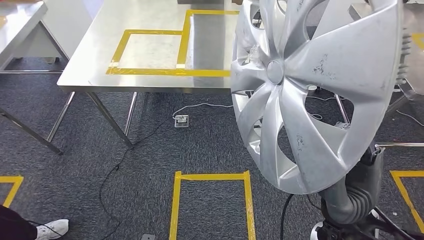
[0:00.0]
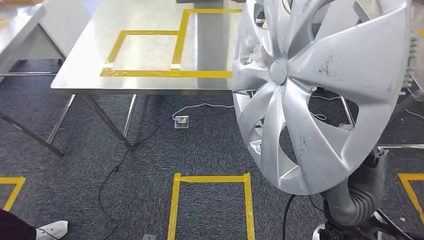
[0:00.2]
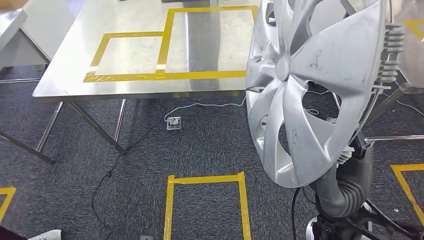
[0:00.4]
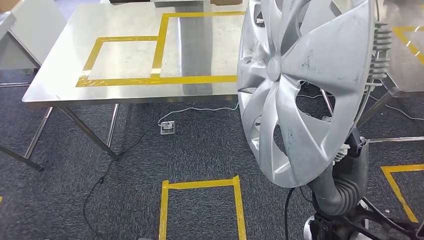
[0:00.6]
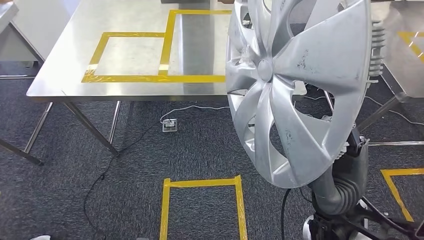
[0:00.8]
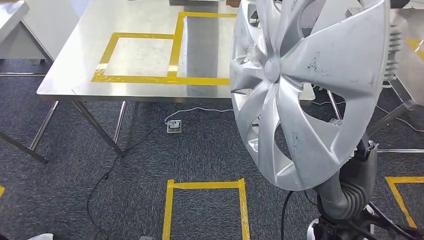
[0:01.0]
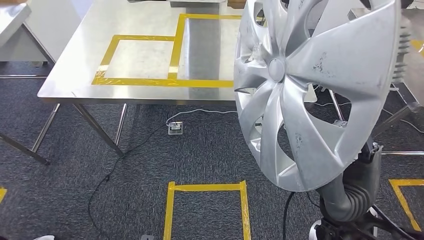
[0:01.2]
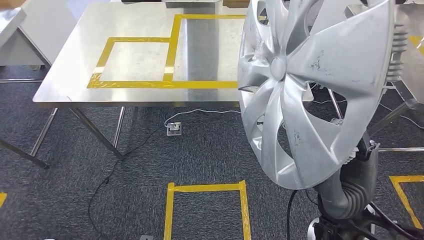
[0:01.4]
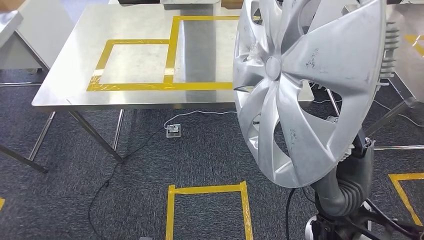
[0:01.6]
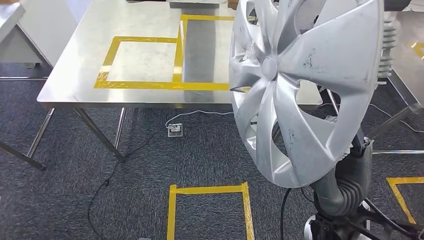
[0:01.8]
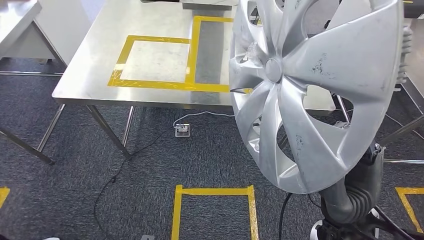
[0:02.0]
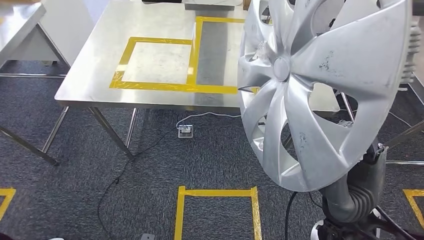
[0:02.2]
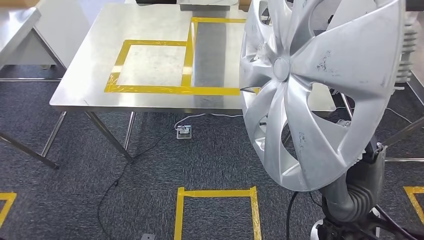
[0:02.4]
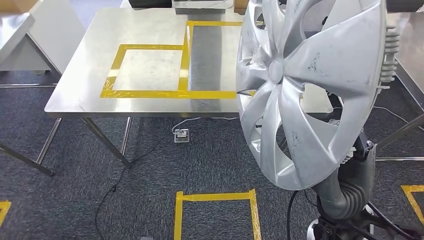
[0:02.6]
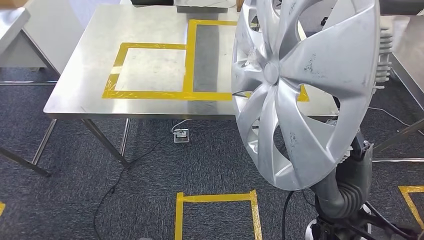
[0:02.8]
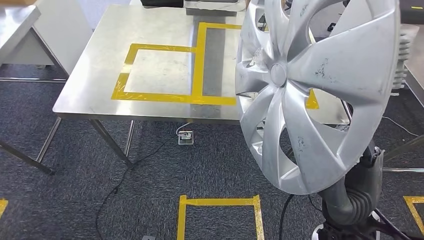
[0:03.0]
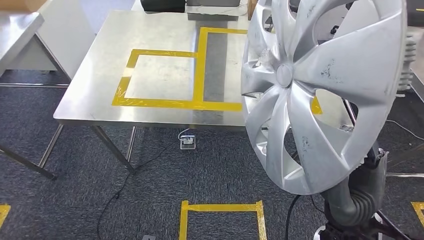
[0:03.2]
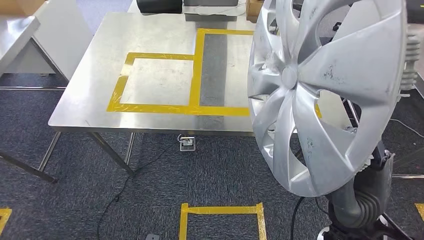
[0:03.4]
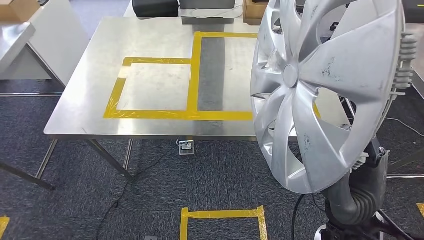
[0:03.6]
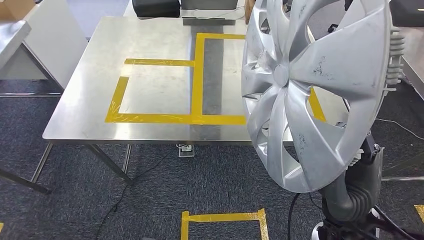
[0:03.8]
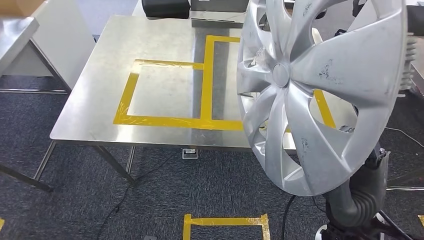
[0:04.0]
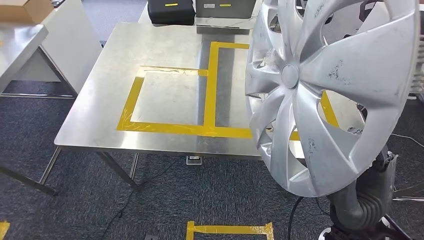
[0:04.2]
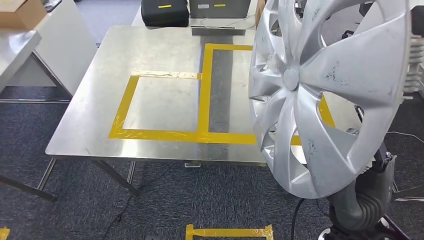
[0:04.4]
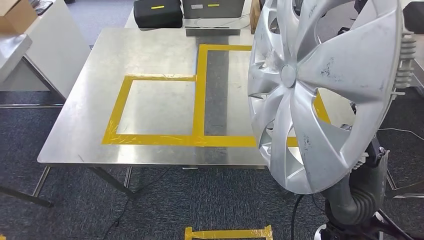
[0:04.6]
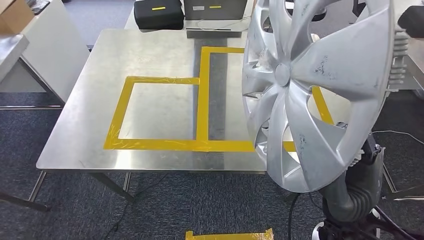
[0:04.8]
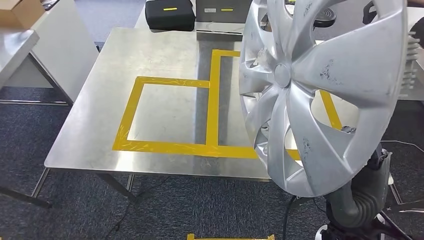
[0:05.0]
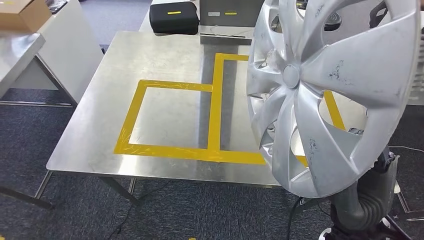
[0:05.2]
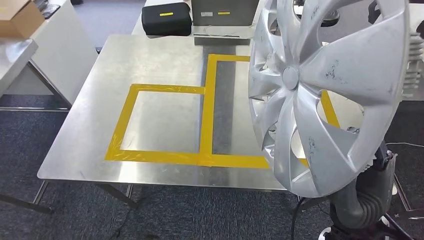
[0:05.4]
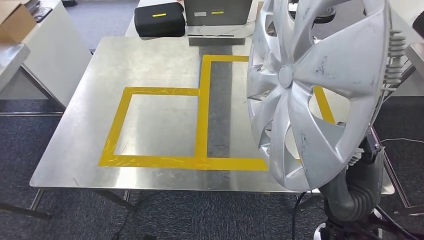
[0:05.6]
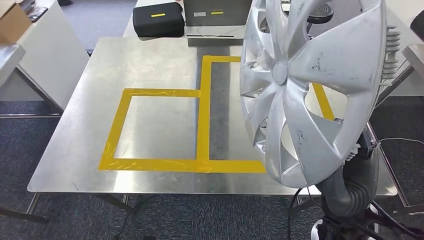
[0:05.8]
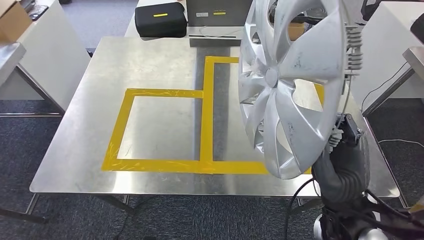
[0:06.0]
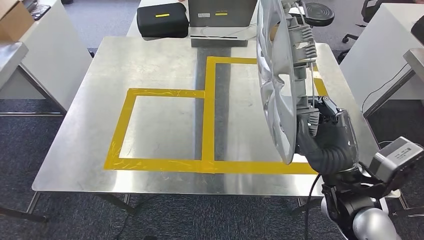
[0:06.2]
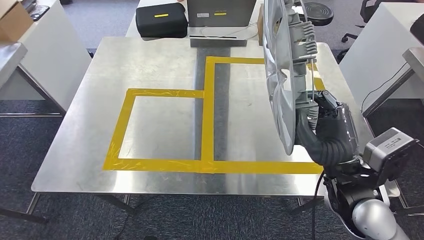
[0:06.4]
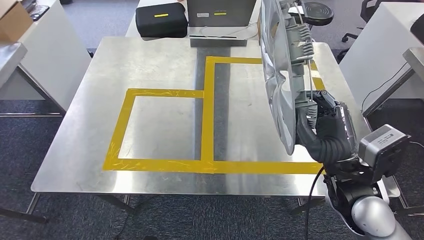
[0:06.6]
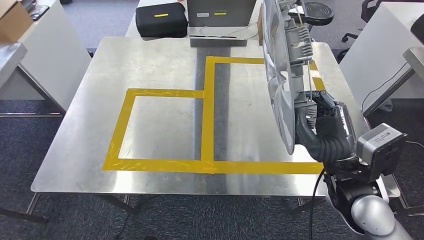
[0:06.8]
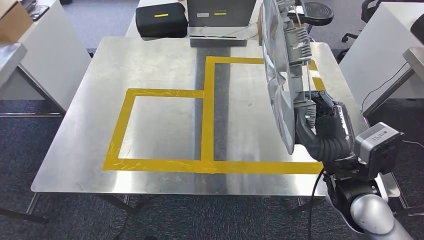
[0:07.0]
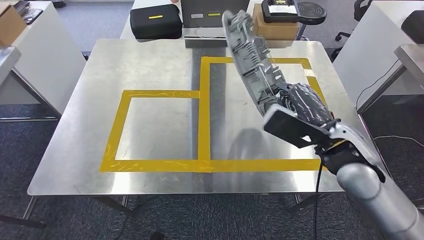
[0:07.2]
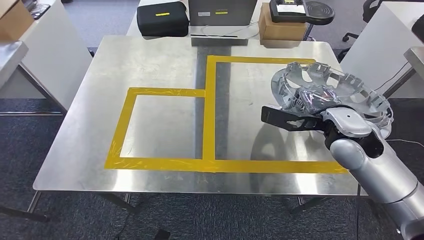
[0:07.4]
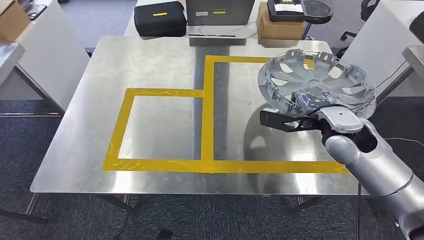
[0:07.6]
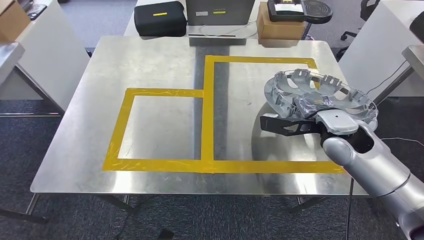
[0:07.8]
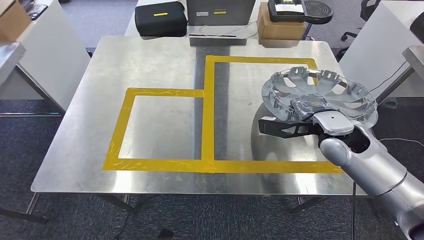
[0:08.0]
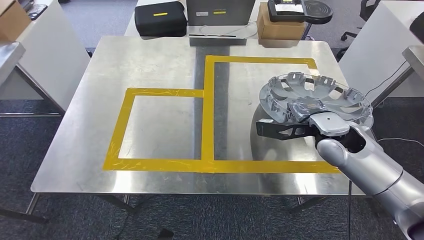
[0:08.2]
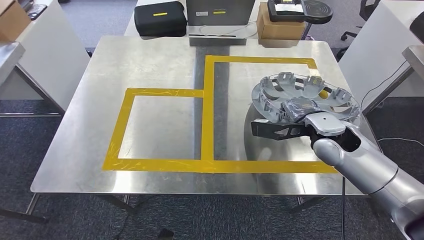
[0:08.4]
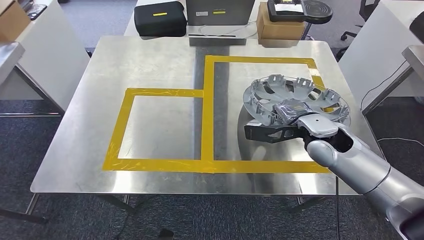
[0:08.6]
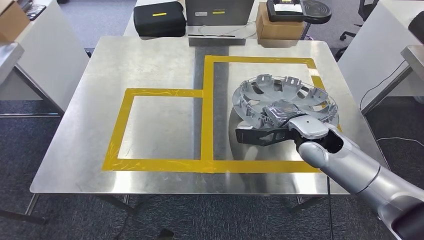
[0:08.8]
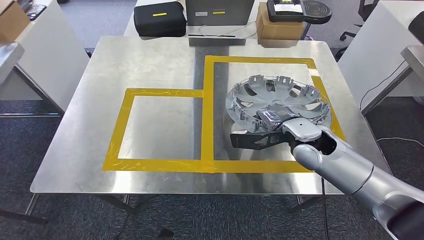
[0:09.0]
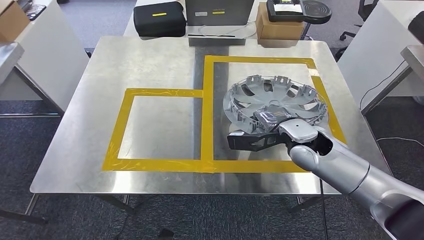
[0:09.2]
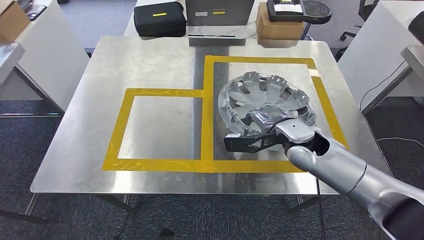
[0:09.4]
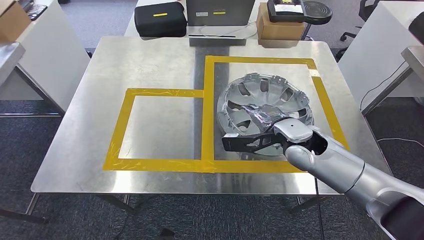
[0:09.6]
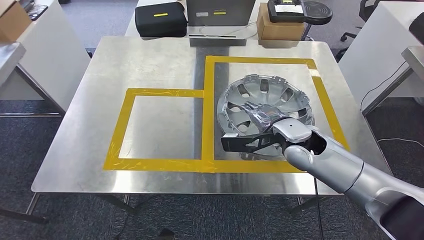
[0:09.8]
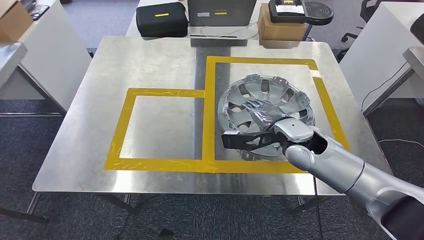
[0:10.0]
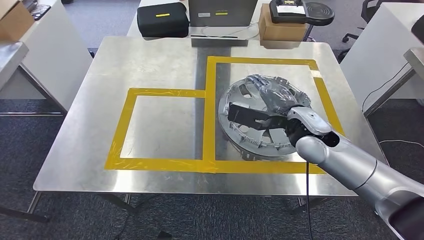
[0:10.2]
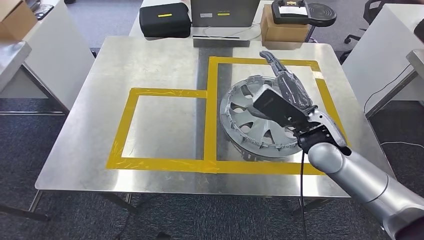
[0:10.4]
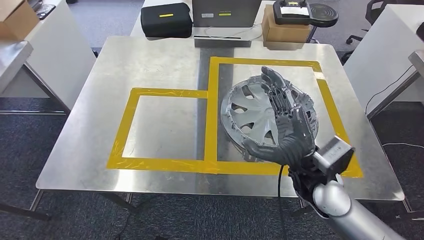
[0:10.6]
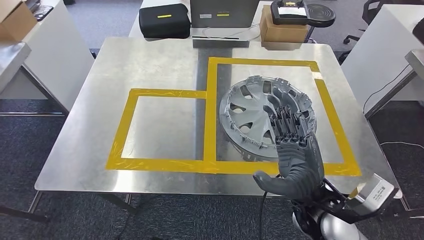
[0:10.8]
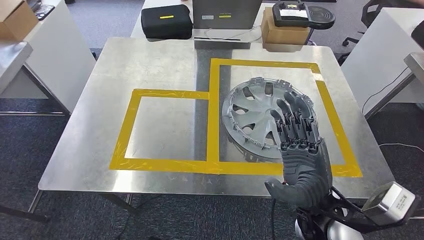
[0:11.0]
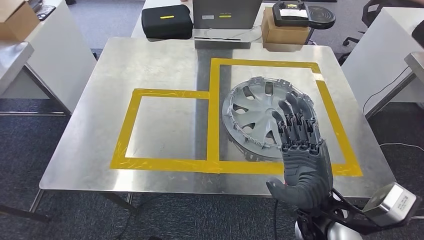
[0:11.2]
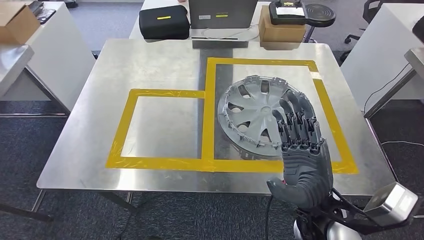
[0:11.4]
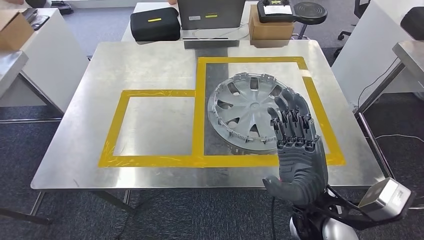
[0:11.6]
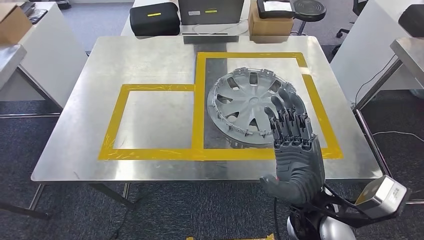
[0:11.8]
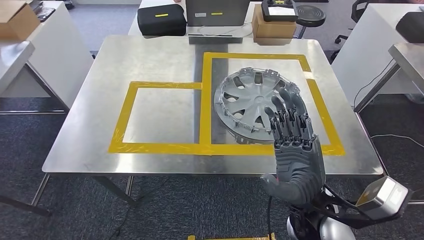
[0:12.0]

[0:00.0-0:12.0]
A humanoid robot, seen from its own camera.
Step, 0:00.0 to 0:02.4: Move the small component to the workbench.
Step, 0:02.8 to 0:10.4: Insert the small component into the corresponding slot on the workbench.
0:07.6 to 0:09.0: The right hand shifts approximately 5 cm to the left.

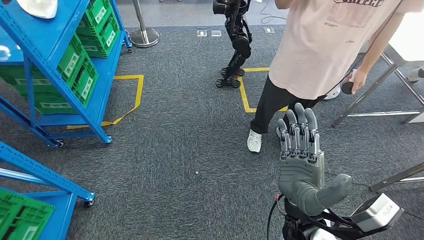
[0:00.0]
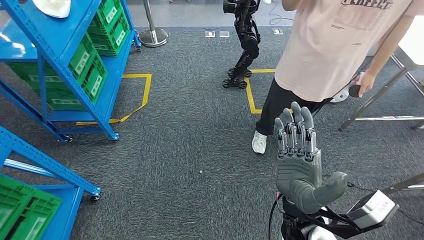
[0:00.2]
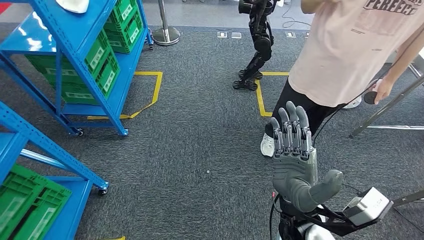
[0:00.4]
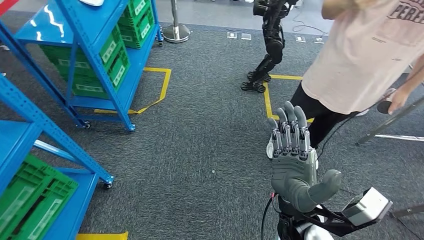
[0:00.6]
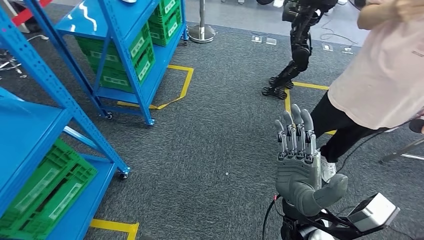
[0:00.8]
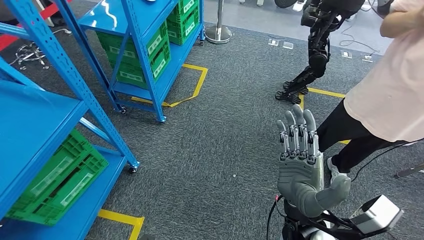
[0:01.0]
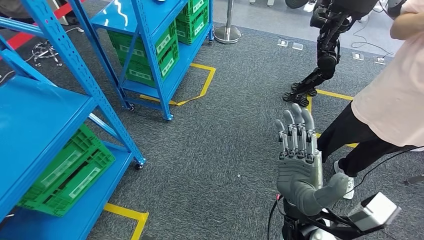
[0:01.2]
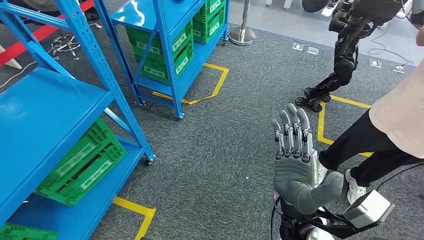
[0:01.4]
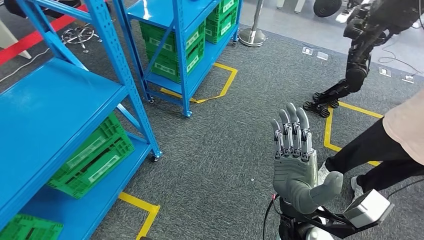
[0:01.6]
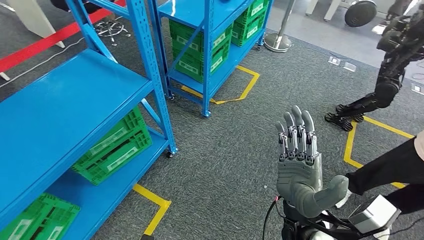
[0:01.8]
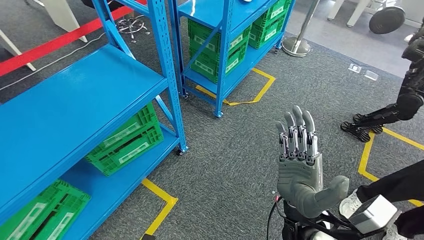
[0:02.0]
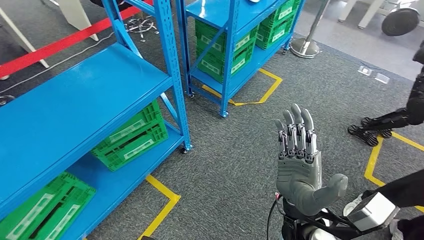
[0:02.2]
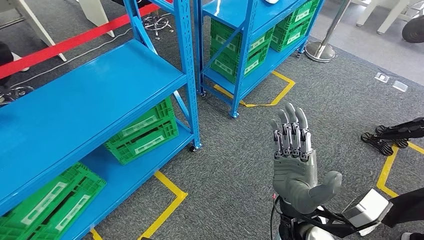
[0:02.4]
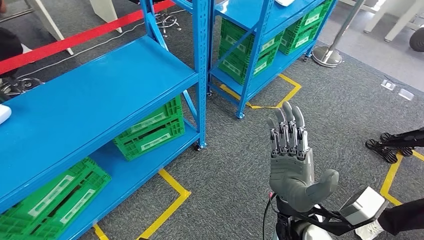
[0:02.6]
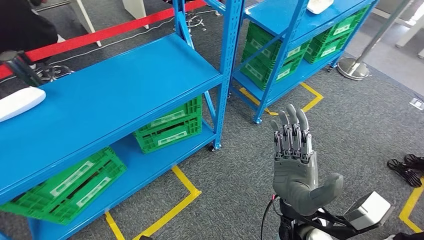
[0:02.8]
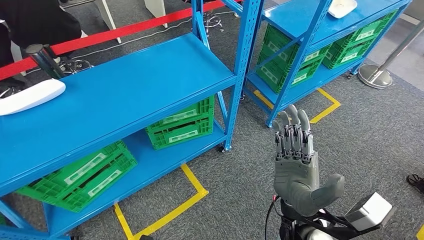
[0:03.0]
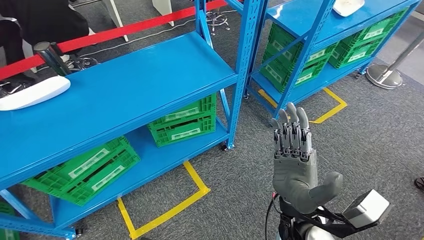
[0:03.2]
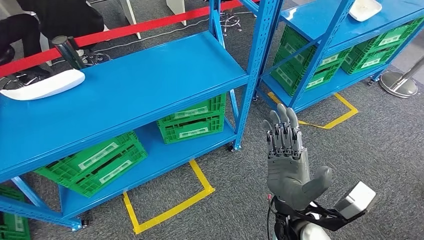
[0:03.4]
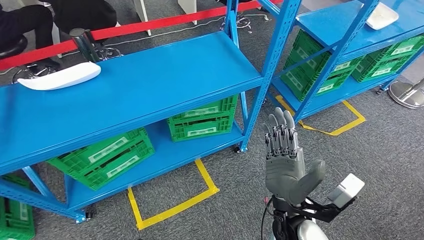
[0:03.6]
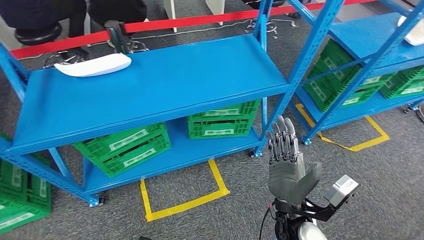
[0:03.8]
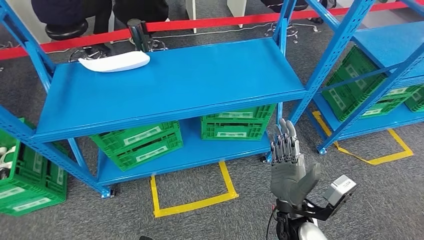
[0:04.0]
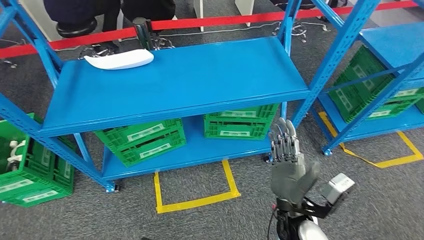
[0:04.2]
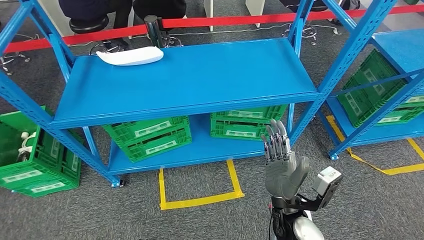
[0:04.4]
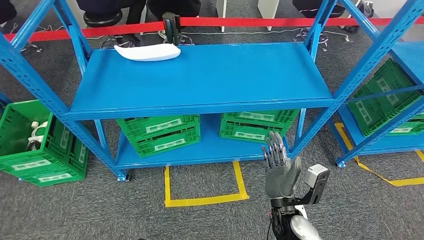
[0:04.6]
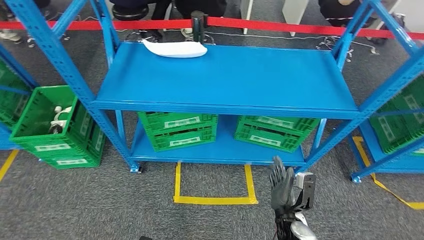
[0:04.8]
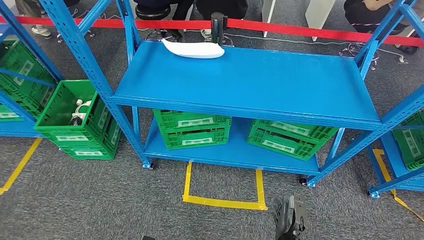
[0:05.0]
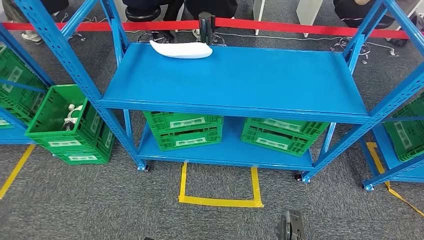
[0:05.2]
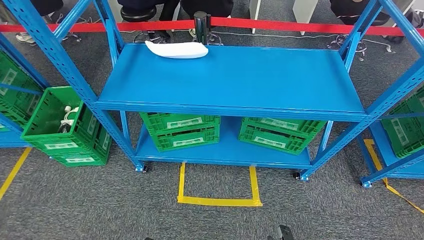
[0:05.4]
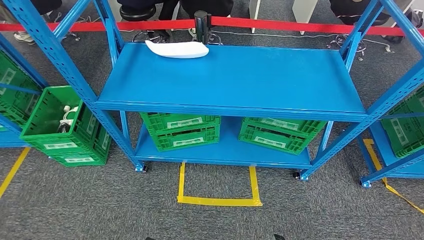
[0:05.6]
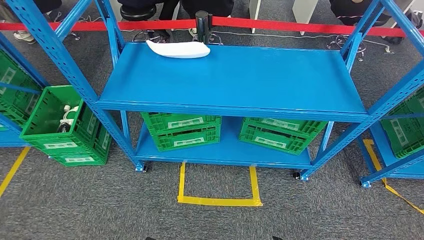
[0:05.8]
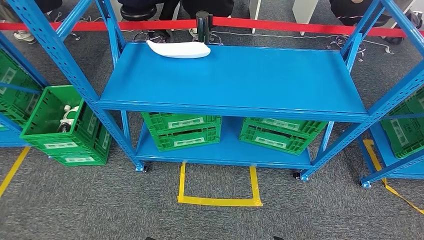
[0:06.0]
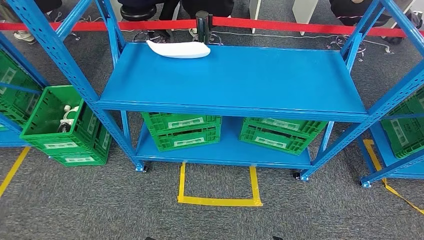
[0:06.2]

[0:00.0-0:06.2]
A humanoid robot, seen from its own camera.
Step, 0:00.0 to 0:06.2: Return to the initial position at the workbench.
